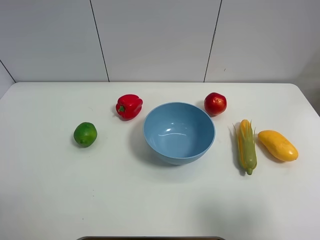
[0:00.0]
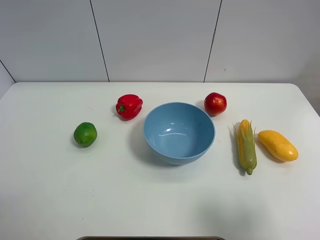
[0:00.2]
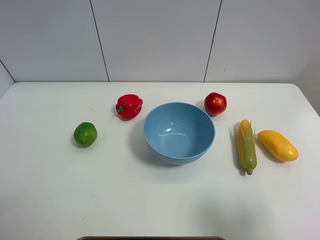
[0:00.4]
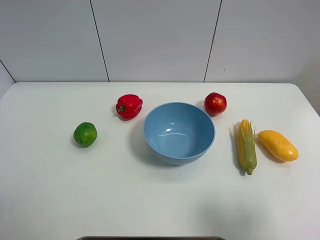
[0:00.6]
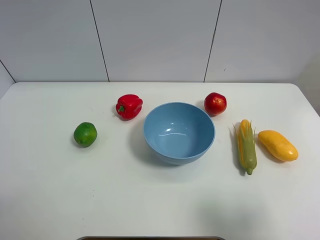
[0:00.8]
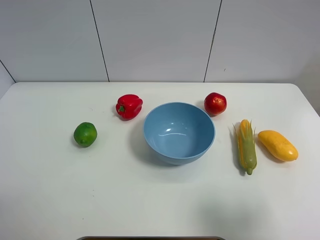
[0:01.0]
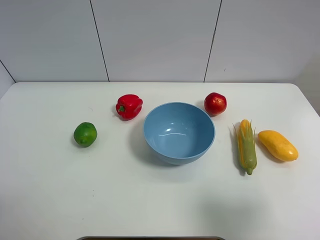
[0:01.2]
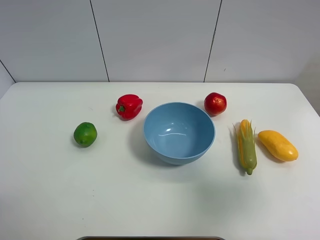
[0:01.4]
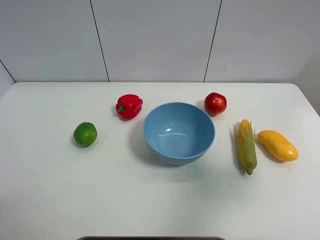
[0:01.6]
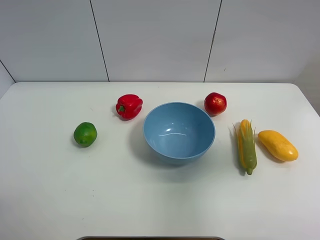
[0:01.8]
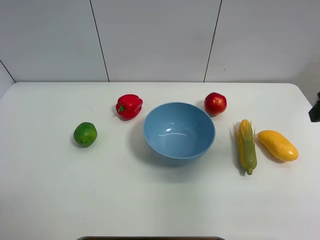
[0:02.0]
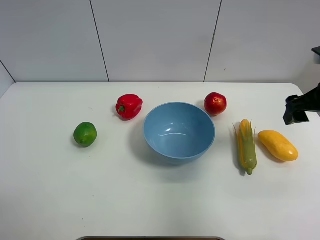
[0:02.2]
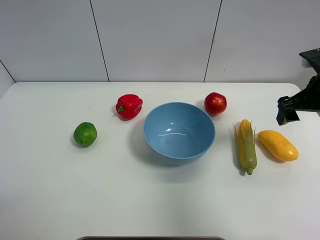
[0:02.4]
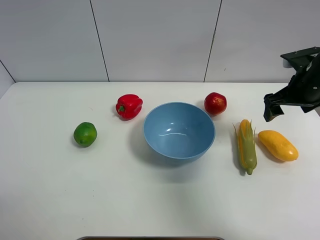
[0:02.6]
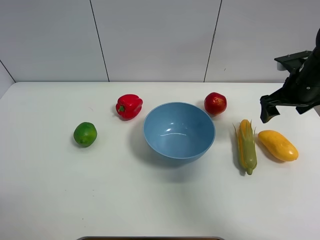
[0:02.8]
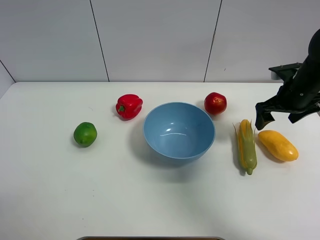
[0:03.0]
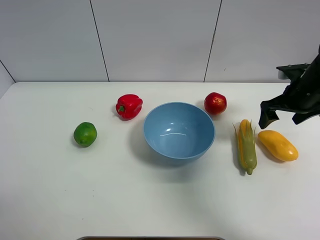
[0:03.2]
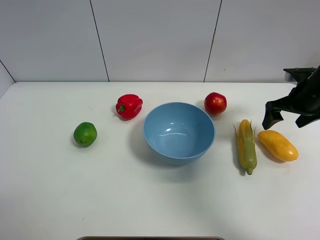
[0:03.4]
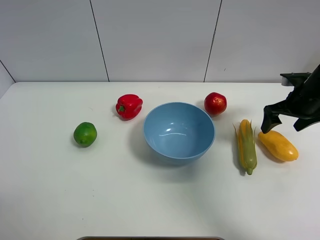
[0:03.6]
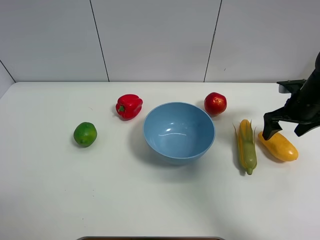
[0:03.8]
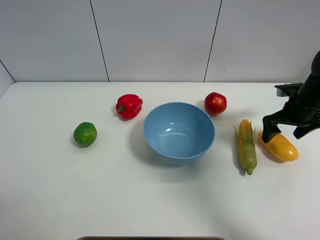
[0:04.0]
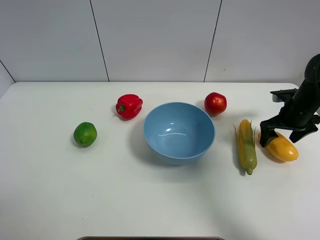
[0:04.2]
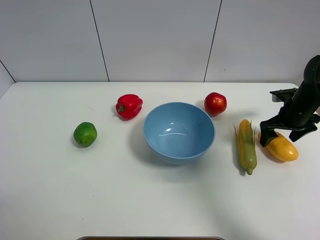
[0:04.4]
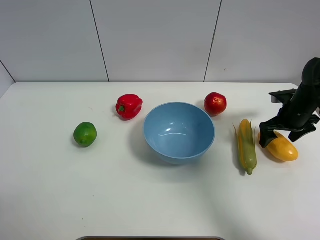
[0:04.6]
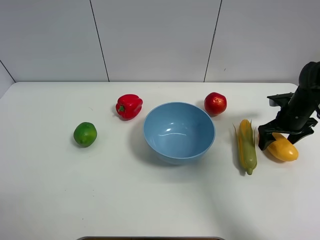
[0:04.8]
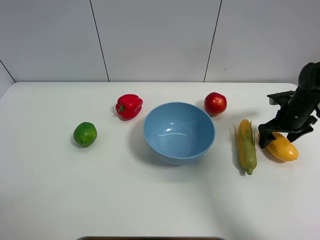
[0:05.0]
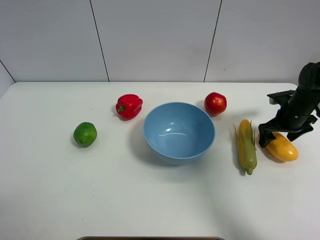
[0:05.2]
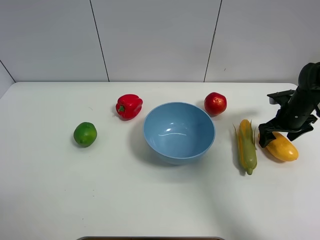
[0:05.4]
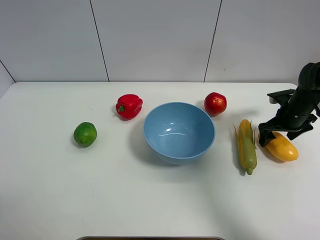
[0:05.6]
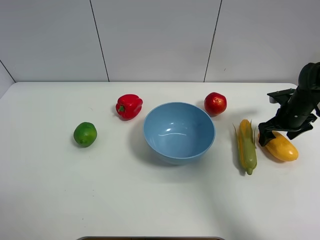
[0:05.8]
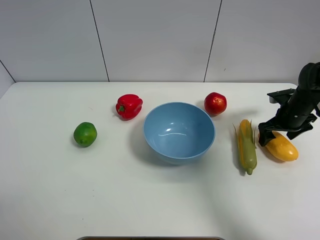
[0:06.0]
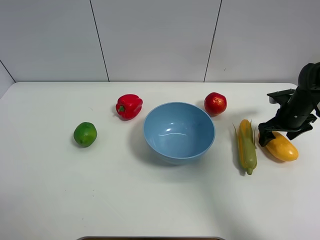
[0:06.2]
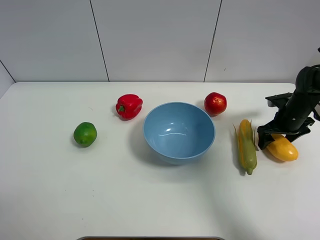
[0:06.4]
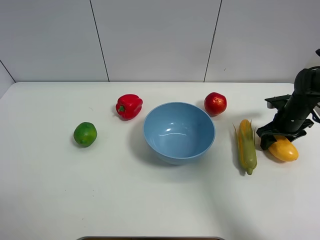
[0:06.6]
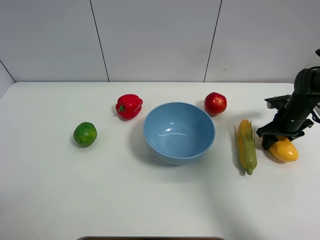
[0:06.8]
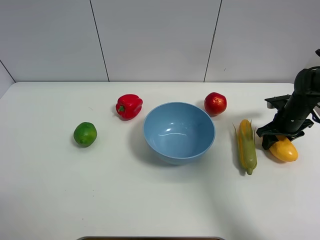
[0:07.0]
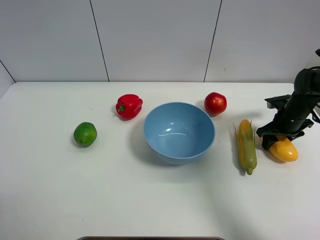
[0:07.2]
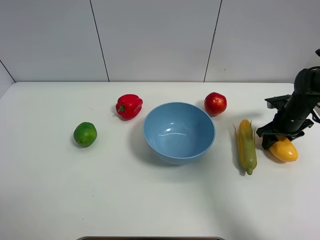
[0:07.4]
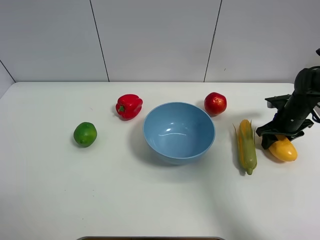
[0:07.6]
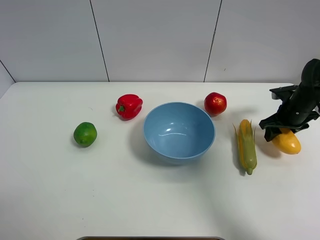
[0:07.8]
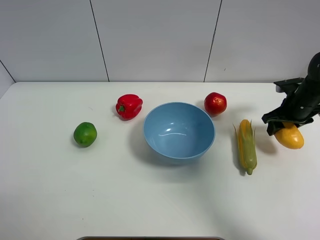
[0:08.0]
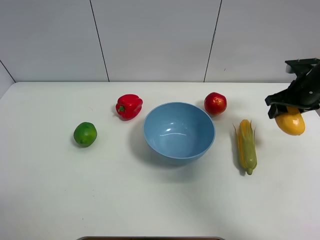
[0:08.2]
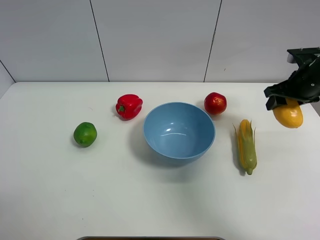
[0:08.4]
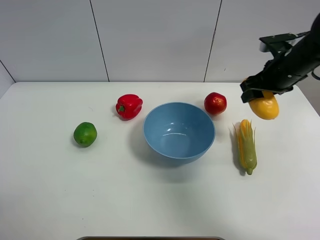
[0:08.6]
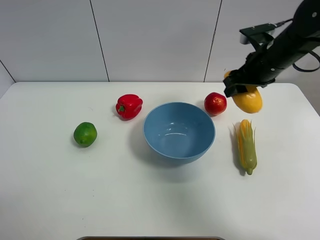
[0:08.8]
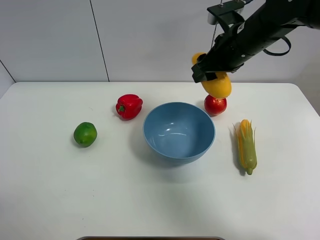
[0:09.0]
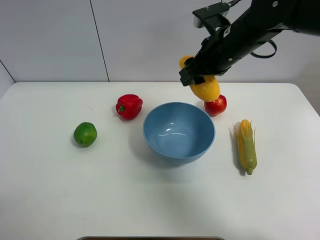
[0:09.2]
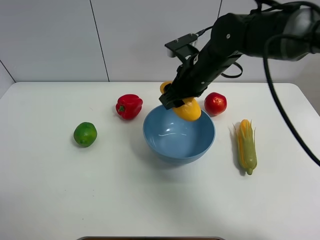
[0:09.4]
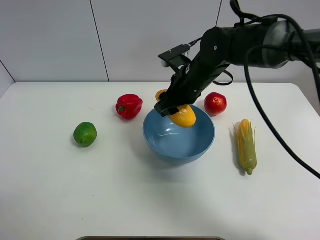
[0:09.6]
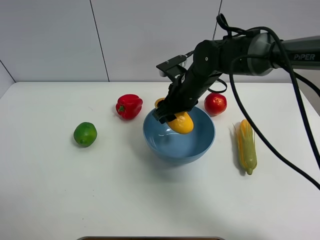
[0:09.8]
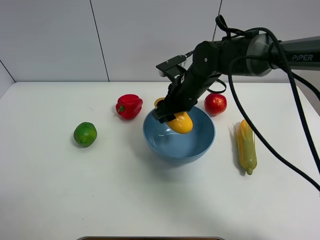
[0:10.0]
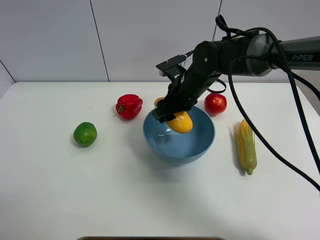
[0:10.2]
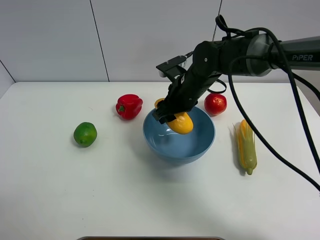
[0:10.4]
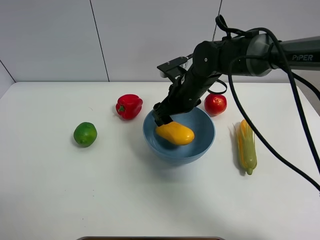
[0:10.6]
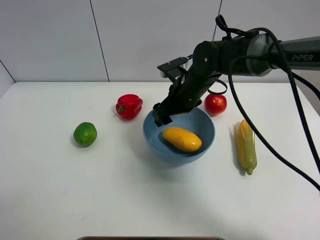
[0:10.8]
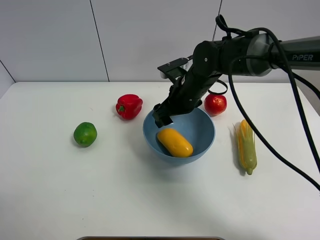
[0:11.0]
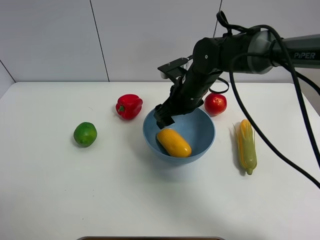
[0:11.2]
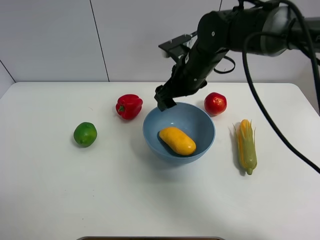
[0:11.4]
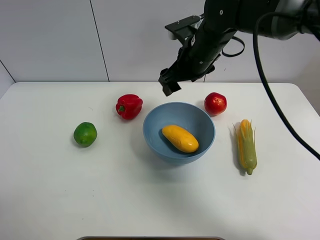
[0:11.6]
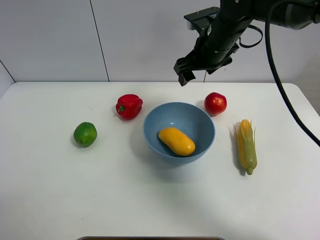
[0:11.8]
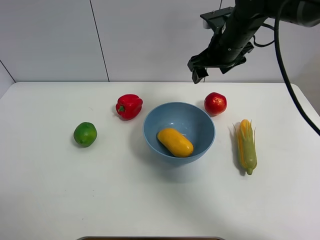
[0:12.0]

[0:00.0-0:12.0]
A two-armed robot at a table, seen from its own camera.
Task of the whole recording: Put the three fruits on the table into a bowl.
Step, 0:00.0 to 0:06.8: Grasp the mango with right gripper.
Step, 0:07.0 to 0:10.8: Place the mango in the blue bowl with right gripper.
0:00.0 to 0:01.6: The right gripper travels forward and upward by approximately 10 cm.
0:01.6 to 0:03.0: The right gripper shifts roughly 25 cm forward and downward.
0:03.0 to 0:04.4: The right gripper is displaced downward by approximately 5 cm.
0:04.4 to 0:06.0: The grippers stay close to where they were, moving slightly.
0:06.0 to 0:07.6: The right gripper closes up.
0:07.6 to 0:09.0: The right gripper moves to the left and upward, some 30 cm.
0:09.0 to 0:10.4: The right gripper travels downward and to the left by approximately 15 cm.
0:10.4 to 0:12.0: The right gripper moves upward and to the right, approximately 15 cm, and opens its fingers.

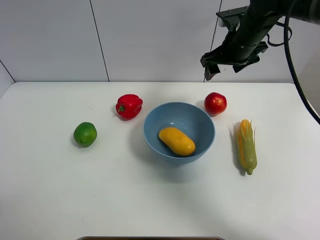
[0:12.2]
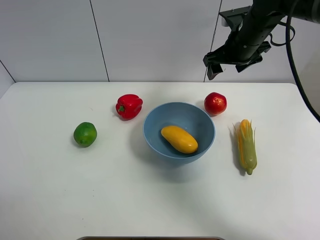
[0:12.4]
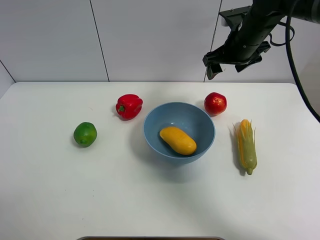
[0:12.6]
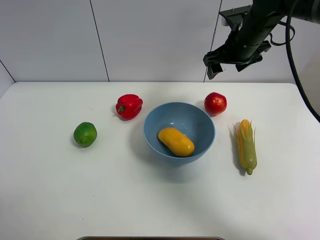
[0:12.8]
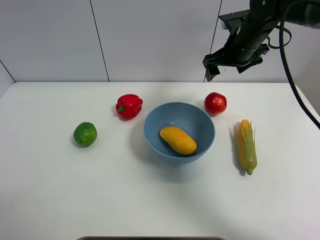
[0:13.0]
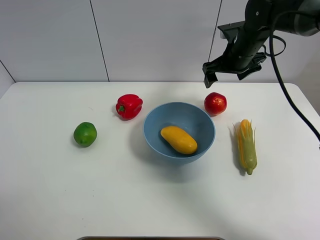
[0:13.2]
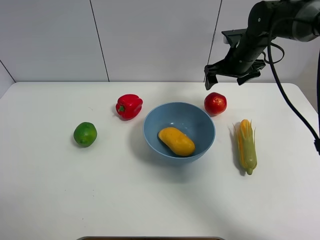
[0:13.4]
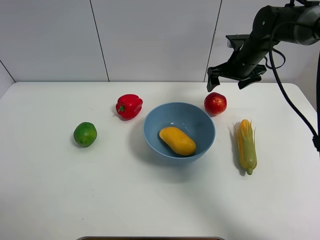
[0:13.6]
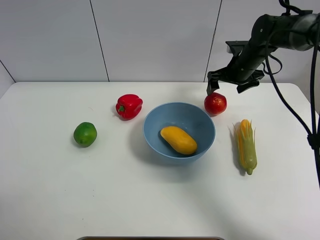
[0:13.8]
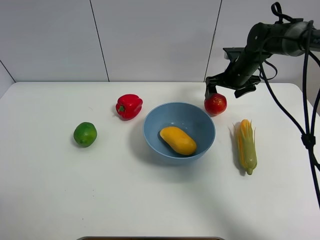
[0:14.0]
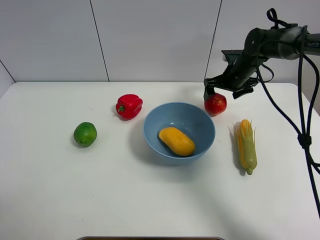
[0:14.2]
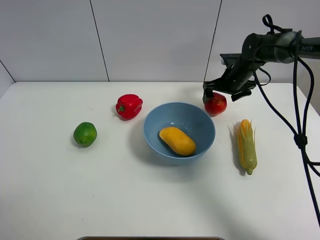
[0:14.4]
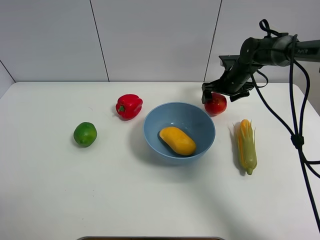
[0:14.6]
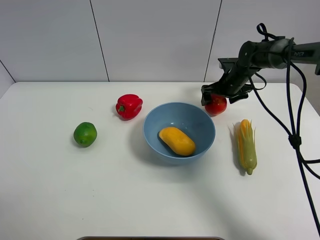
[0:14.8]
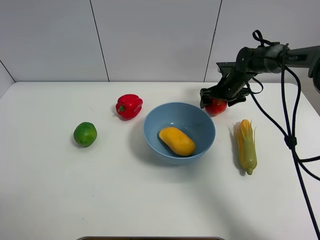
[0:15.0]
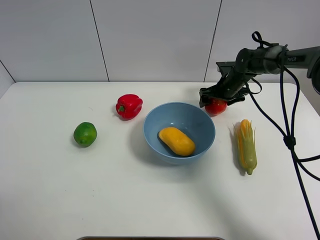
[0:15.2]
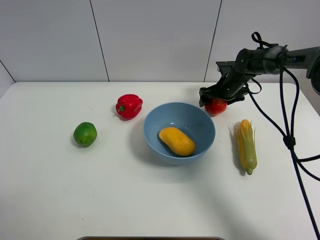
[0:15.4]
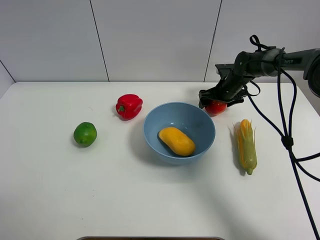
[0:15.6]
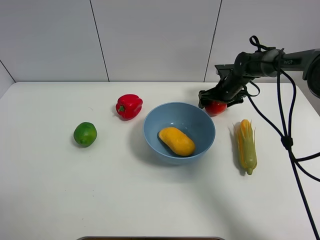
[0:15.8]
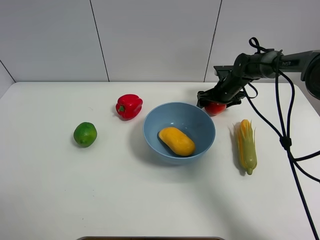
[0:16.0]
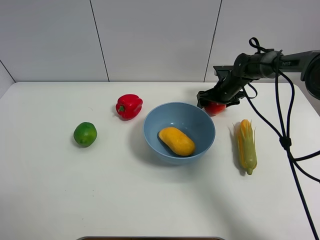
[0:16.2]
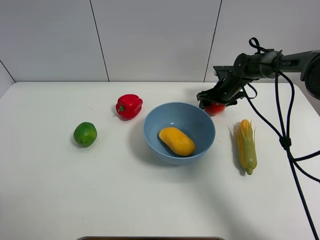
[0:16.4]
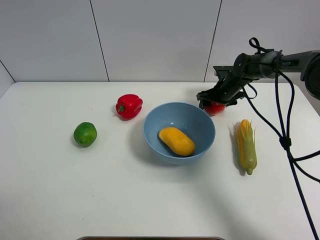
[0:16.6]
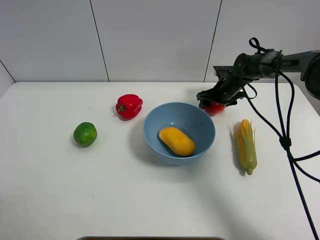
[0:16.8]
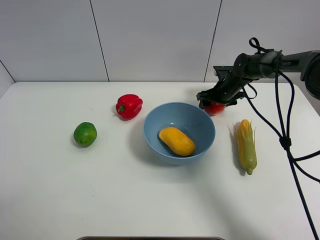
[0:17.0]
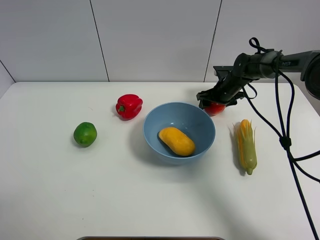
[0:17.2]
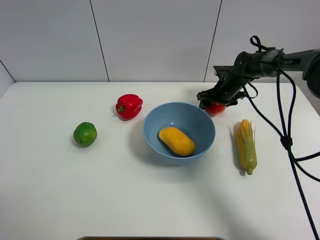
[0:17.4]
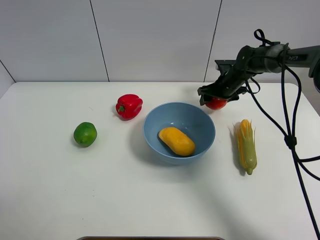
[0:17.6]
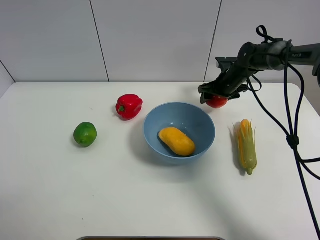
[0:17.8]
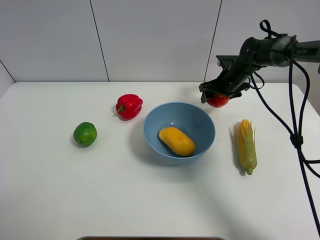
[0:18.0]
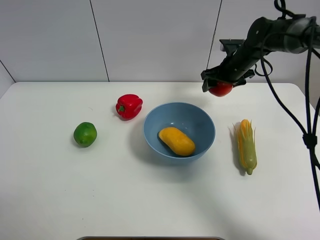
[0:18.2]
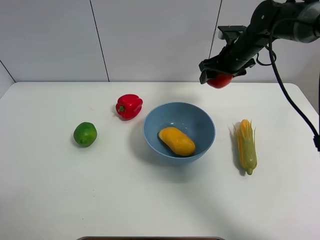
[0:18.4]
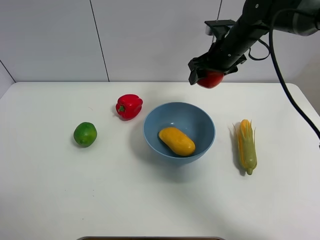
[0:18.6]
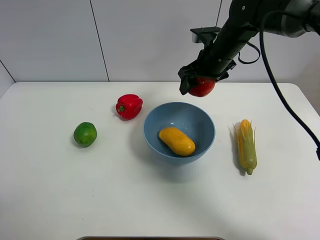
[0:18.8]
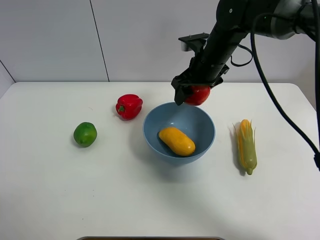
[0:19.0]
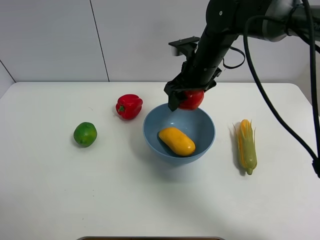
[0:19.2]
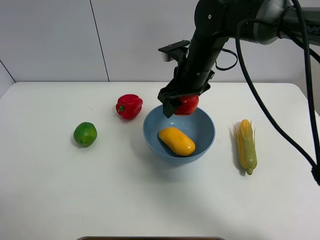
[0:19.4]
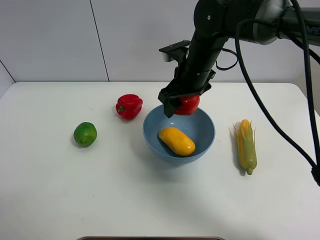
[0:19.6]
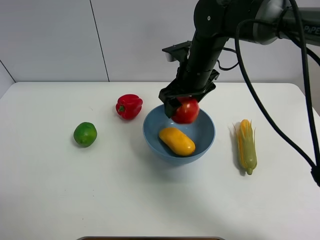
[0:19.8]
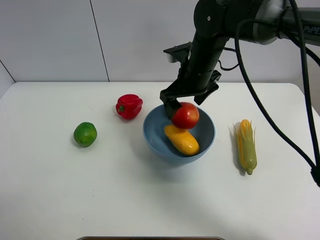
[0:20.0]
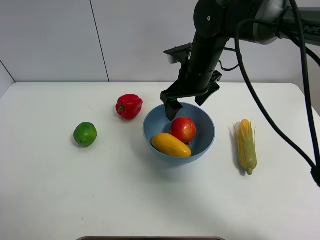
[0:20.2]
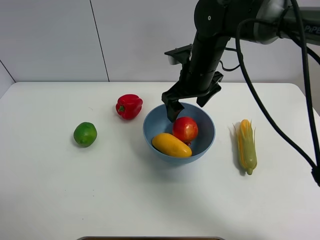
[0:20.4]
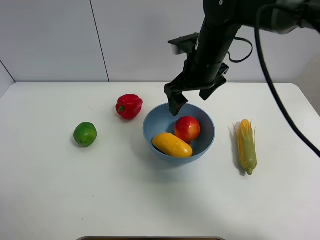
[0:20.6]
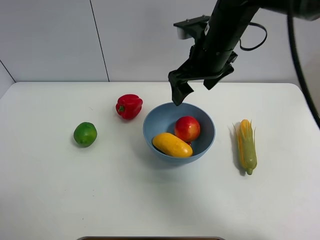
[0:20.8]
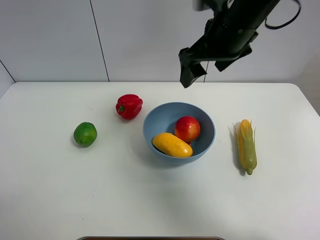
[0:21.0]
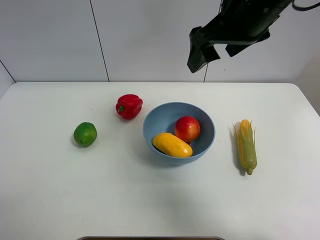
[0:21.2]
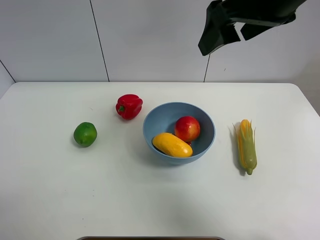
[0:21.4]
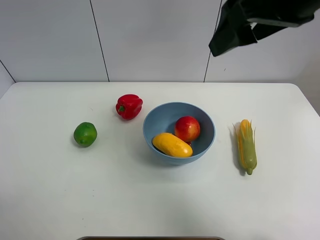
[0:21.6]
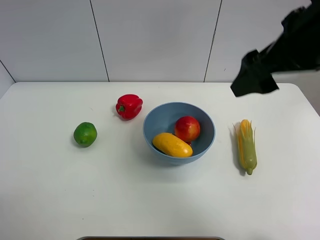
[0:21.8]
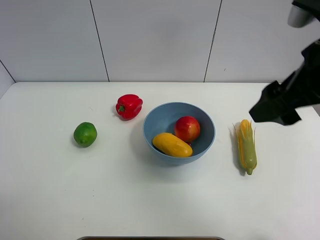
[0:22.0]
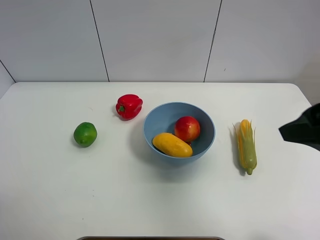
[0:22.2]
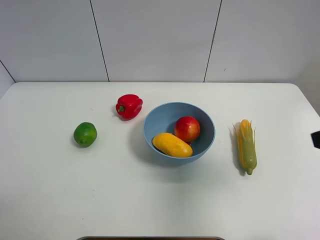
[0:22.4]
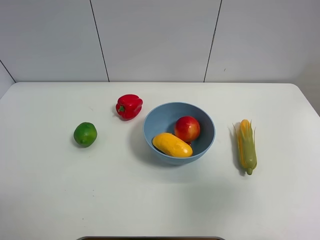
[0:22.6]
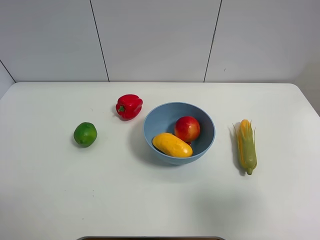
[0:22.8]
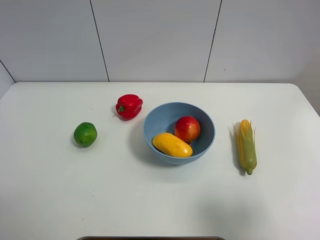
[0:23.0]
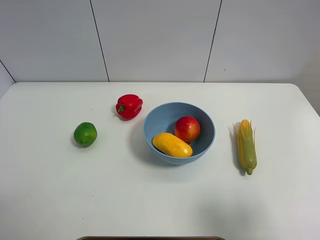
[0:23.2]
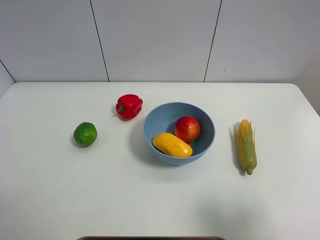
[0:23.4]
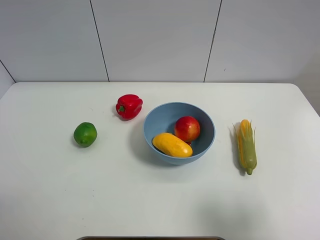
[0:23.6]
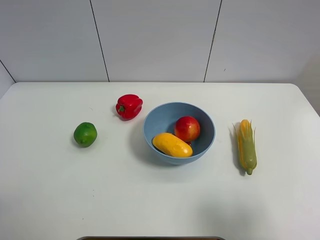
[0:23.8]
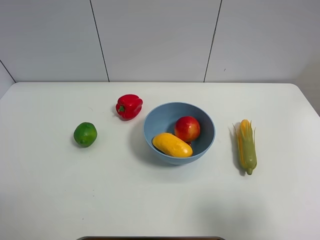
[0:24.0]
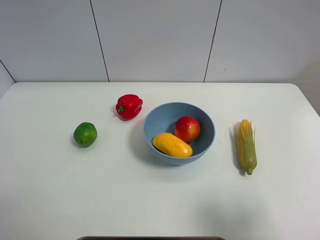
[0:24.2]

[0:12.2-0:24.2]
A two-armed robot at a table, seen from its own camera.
Task of the whole recording: Put the three fruits on the table into a bowl.
Step, 0:12.2 to 0:16.4: Grasp the pomegranate with right gripper.
Step, 0:16.6 to 0:20.4: Place the pomegranate in the blue bowl with right gripper.
0:12.2 to 0:13.8: The right gripper travels downward by roughly 10 cm, and opens its fingers.
0:13.8 to 0:15.2: The right gripper shifts approximately 10 cm downward.
0:15.2 to 0:16.6: The right gripper closes up.
0:16.6 to 0:18.2: The right gripper heads upward, covering roughly 10 cm.
0:18.2 to 0:19.8: The right gripper moves to the left and backward, some 15 cm.
0:19.8 to 0:21.2: The right gripper moves upward and backward, about 15 cm.
0:21.2 to 0:22.6: The right gripper travels backward and to the right by about 30 cm.
0:22.6 to 0:24.2: The right gripper shifts by some 5 cm.
